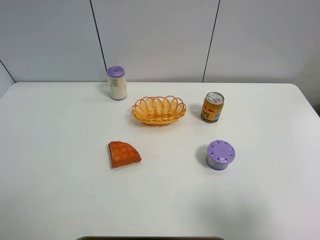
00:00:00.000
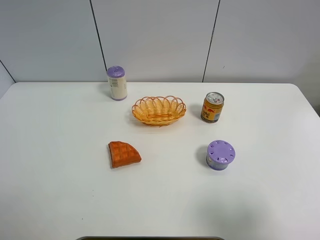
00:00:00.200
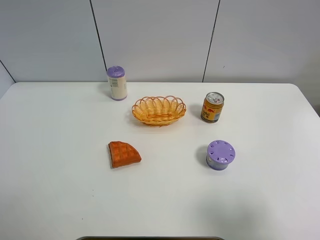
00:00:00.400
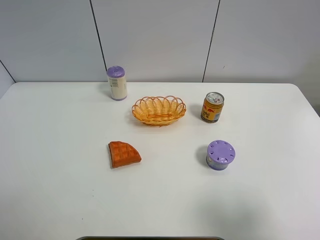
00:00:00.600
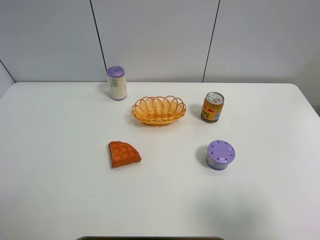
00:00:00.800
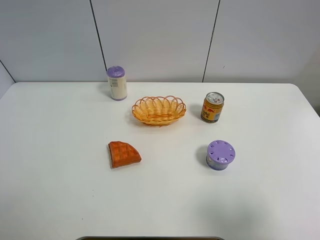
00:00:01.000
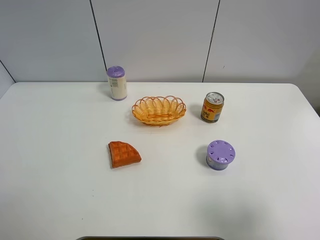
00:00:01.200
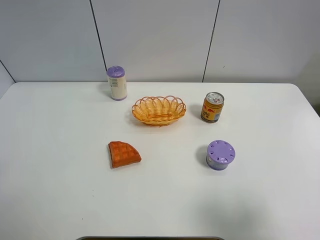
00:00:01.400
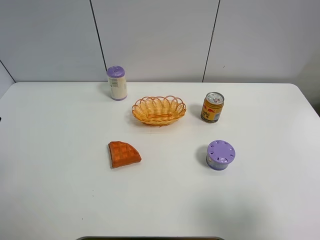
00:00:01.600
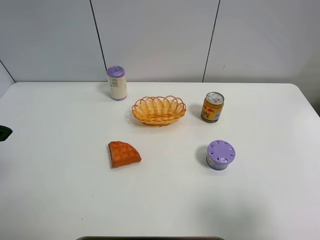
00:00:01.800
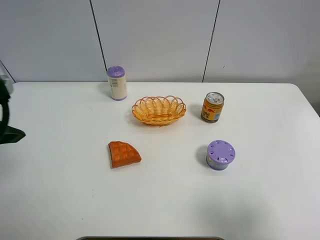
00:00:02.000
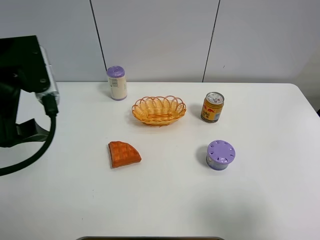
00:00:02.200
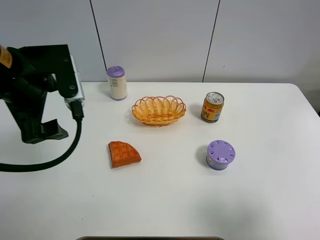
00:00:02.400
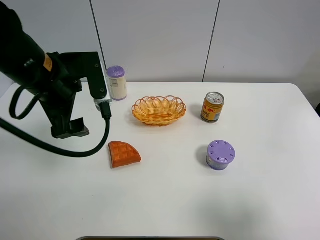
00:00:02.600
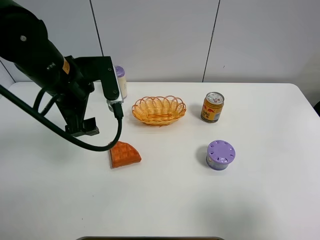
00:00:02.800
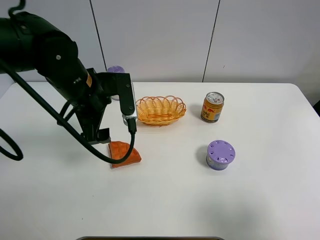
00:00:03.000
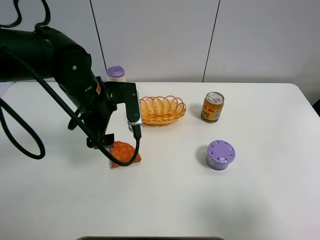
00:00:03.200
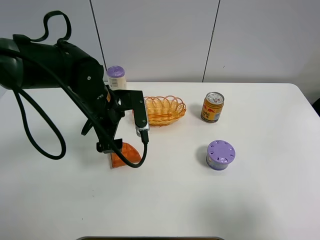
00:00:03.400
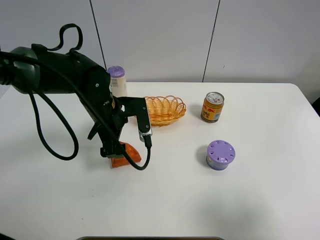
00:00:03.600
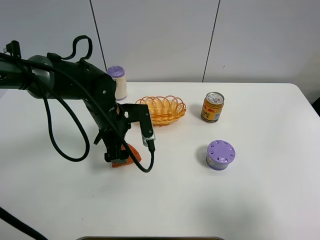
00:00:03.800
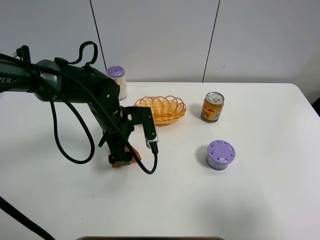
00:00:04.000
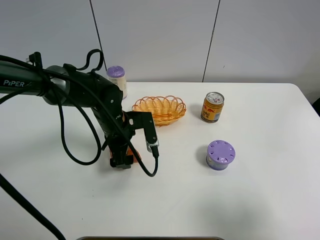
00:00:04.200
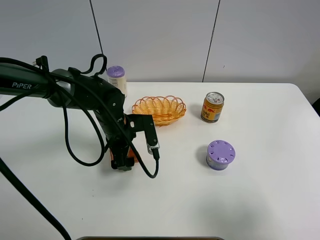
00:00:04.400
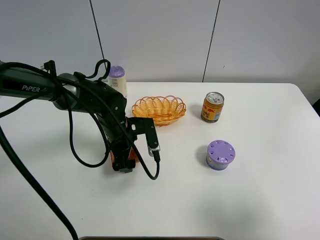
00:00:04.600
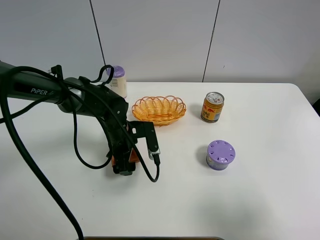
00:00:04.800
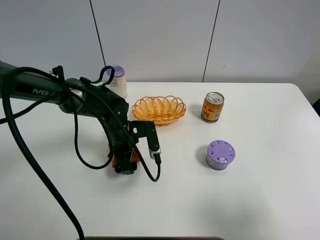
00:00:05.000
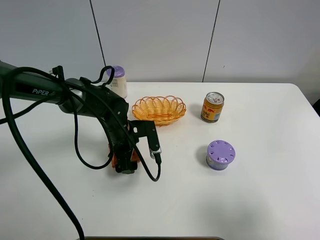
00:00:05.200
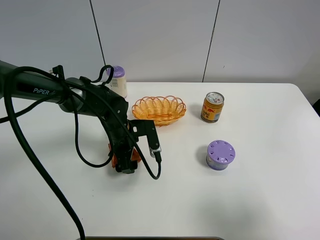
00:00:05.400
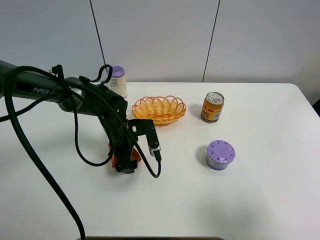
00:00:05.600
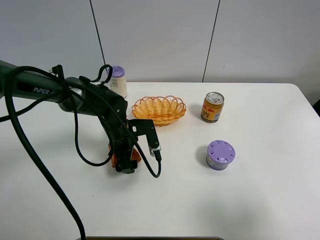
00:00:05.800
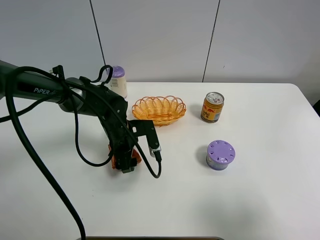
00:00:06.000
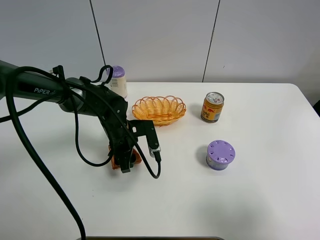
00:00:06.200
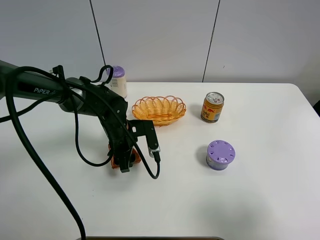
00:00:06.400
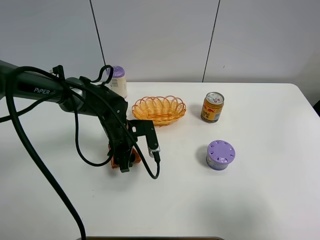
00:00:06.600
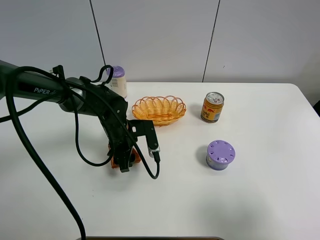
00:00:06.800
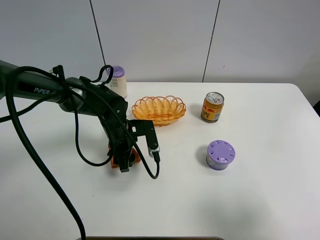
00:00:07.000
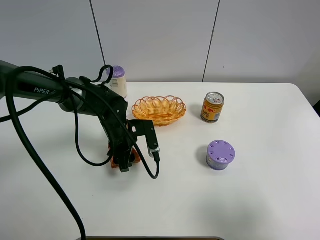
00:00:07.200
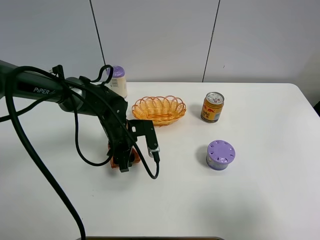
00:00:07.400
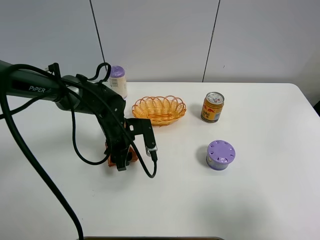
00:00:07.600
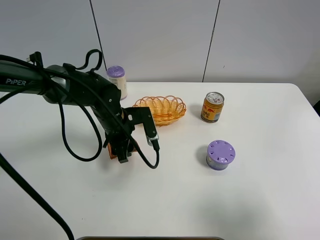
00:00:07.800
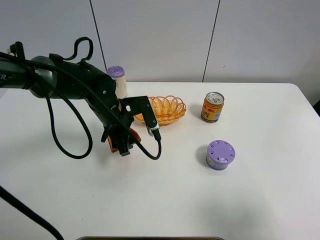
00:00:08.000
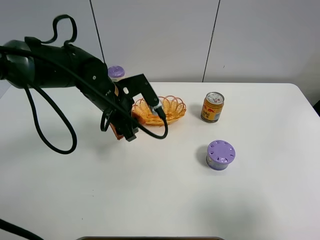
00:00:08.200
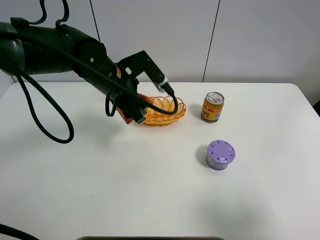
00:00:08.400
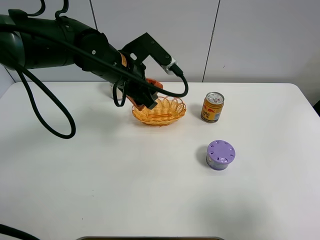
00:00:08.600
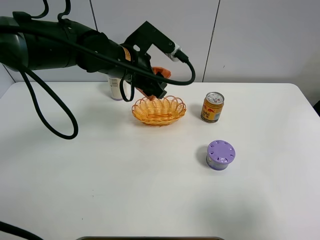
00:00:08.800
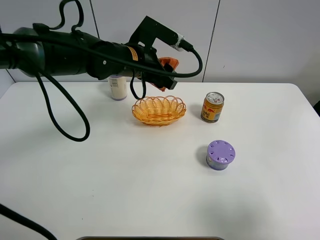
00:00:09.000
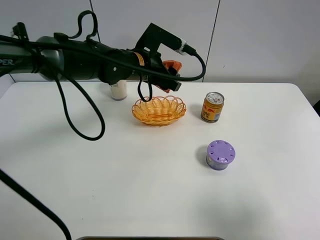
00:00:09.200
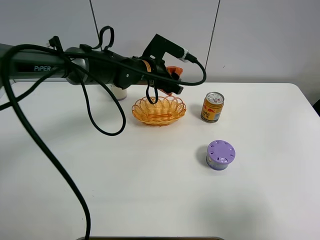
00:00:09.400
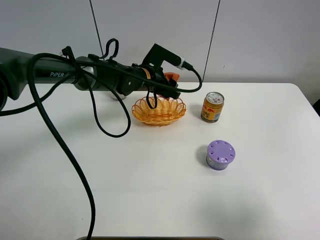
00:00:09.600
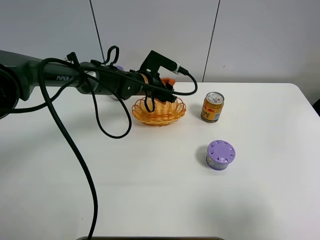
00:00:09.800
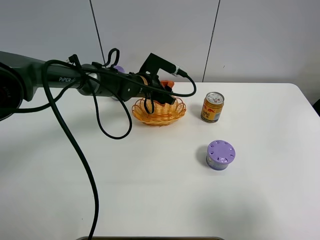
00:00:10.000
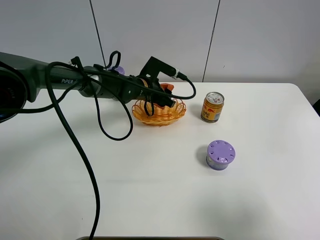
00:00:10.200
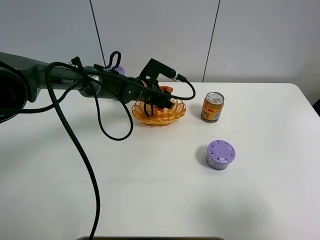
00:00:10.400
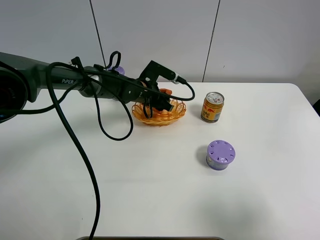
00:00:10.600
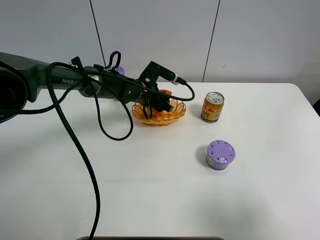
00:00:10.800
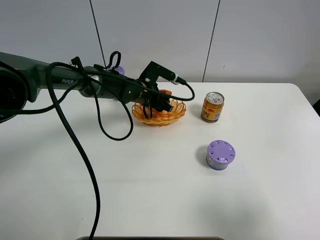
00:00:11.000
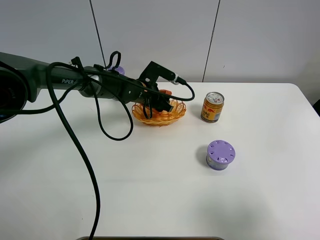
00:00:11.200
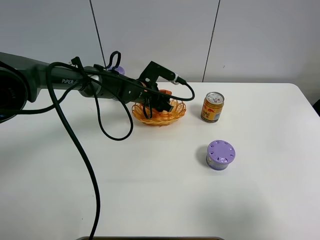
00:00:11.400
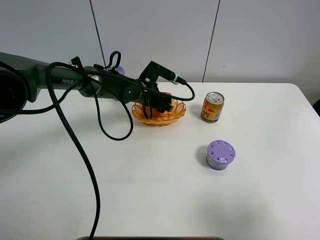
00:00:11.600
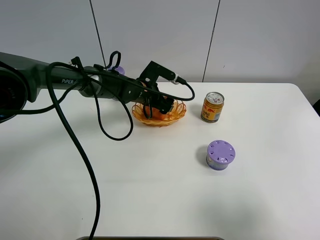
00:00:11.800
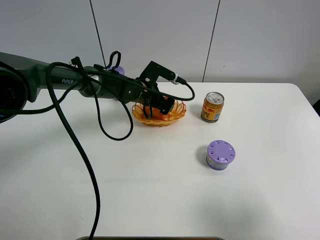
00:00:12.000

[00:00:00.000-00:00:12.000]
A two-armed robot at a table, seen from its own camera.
Task of the whole recording: Put the bakery in the basket.
00:00:01.600 to 00:00:03.000: The left gripper shifts approximately 25 cm to the right, forward and downward.
00:00:03.000 to 00:00:04.400: The left gripper travels downward by some 10 cm.
00:00:04.400 to 00:00:06.000: The left gripper closes up.
00:00:06.000 to 00:00:07.600: There are only small adjustments of the grippers.
00:00:07.600 to 00:00:09.000: The left gripper travels upward by about 15 cm.
00:00:09.000 to 00:00:10.400: The left gripper is displaced downward and forward by about 15 cm.
00:00:10.400 to 00:00:12.000: The left gripper opens up.

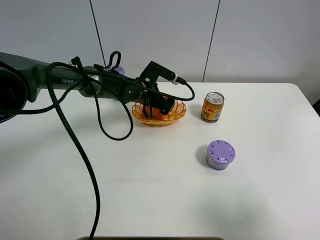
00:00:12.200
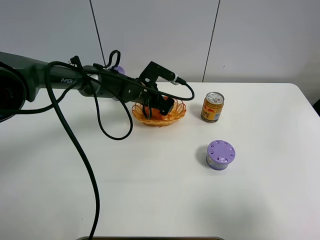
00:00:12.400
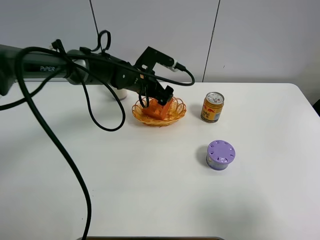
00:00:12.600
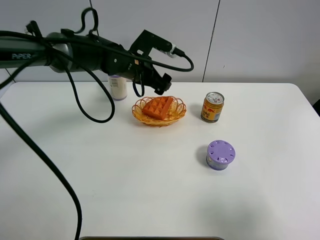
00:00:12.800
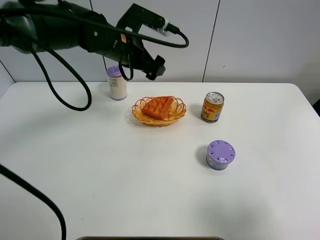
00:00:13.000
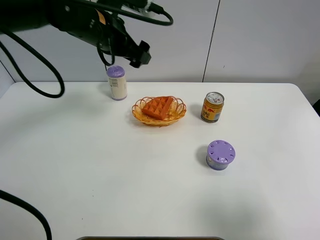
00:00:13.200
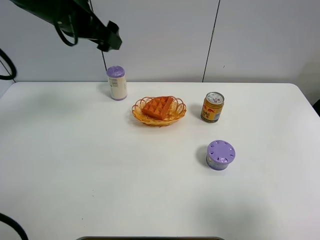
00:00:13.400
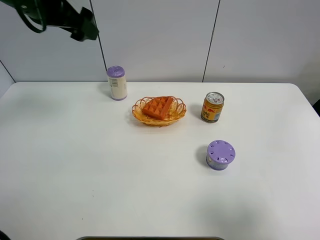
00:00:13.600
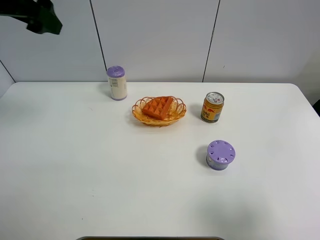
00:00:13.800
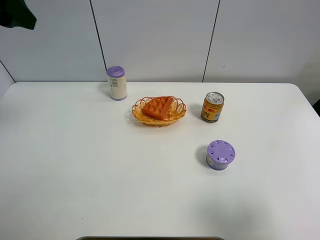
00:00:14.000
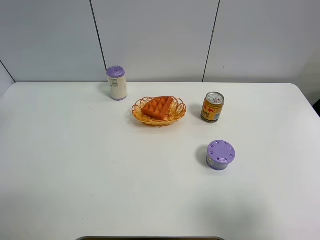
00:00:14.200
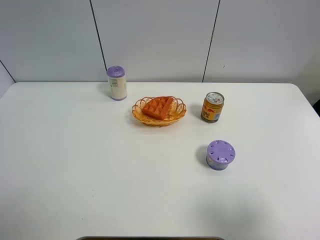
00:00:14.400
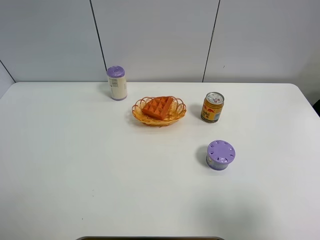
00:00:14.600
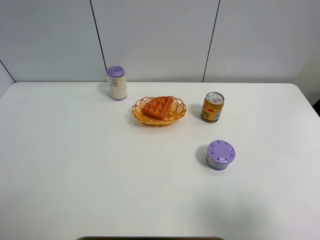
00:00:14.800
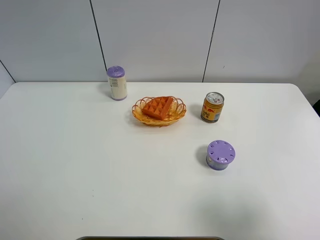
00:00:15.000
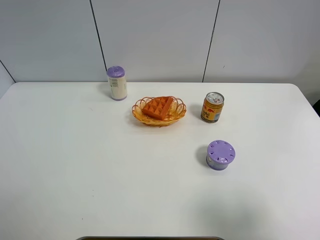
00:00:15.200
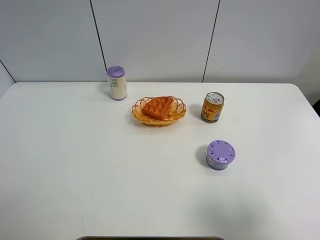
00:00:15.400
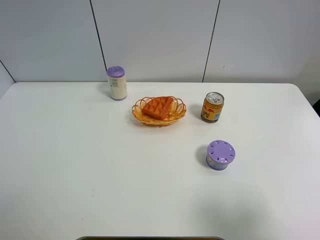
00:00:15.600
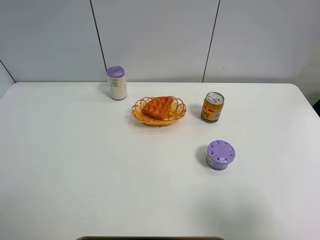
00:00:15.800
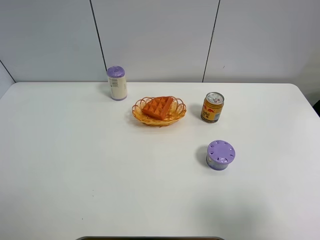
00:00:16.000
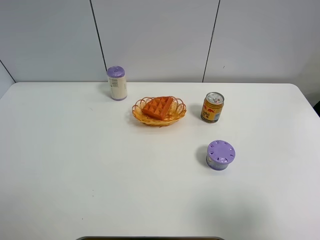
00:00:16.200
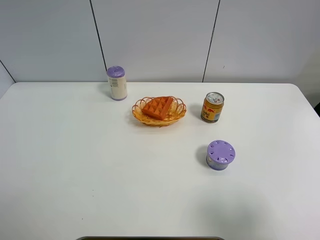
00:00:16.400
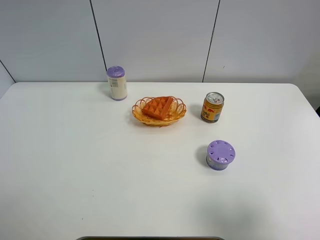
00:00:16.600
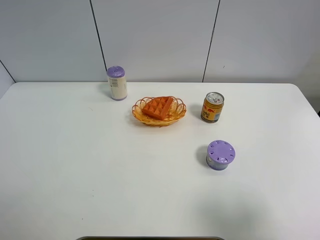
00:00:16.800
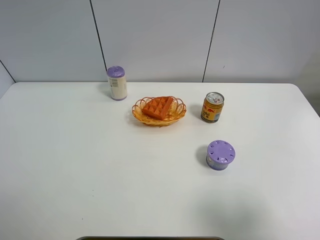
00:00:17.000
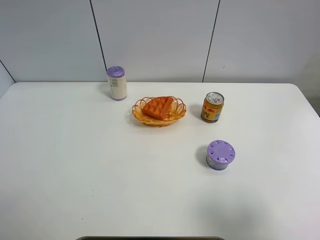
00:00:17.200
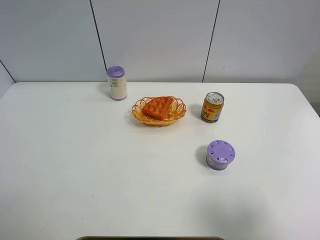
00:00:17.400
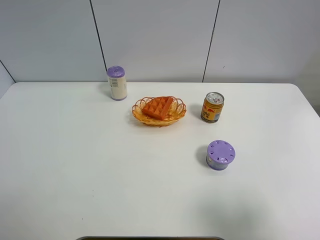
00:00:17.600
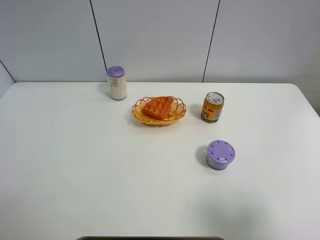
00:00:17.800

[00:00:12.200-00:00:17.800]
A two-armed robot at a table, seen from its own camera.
Task of the whole recording: Put the bakery in the basket.
00:00:12.200 to 00:00:13.600: The left gripper moves upward and to the left, about 30 cm.
00:00:13.600 to 00:00:15.000: The left gripper shifts about 30 cm backward, to the left and upward.
